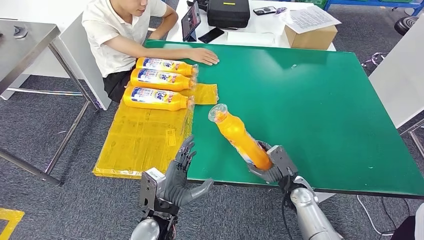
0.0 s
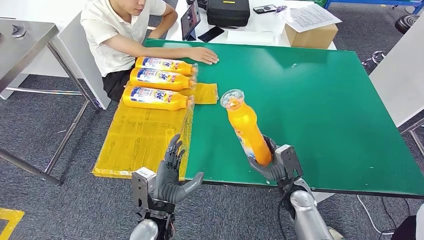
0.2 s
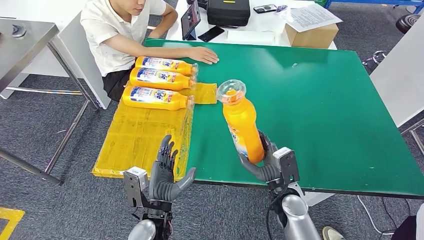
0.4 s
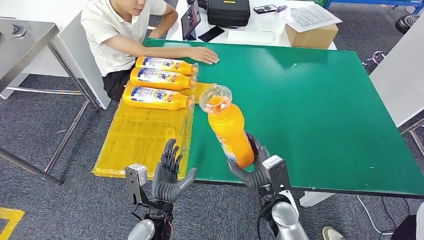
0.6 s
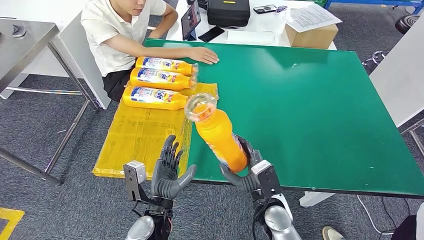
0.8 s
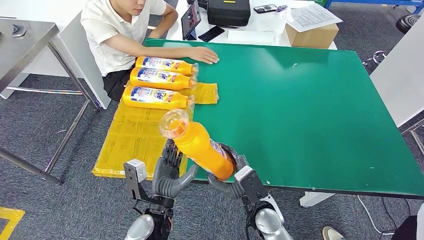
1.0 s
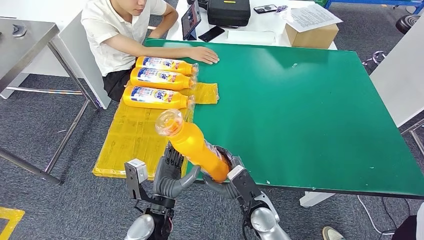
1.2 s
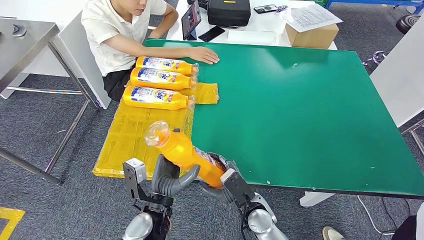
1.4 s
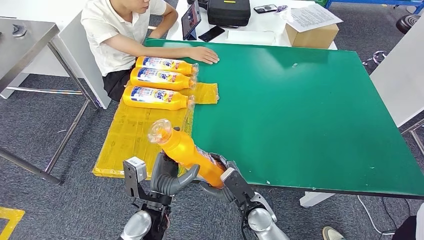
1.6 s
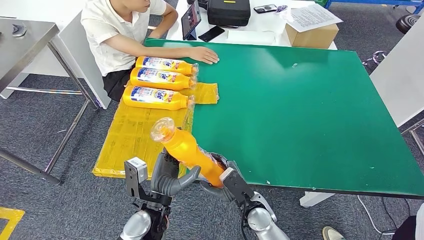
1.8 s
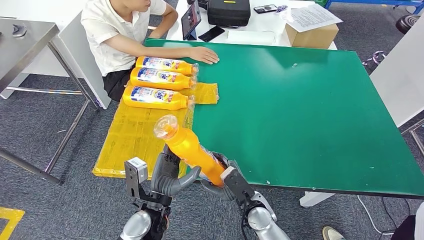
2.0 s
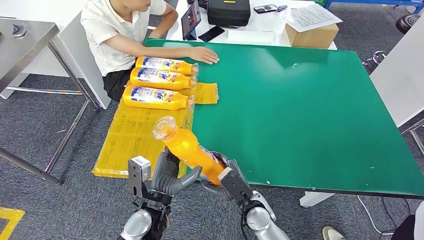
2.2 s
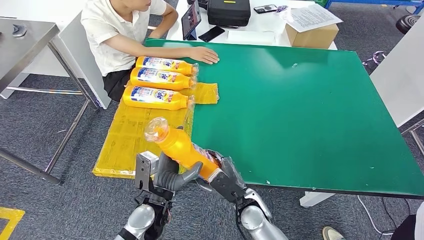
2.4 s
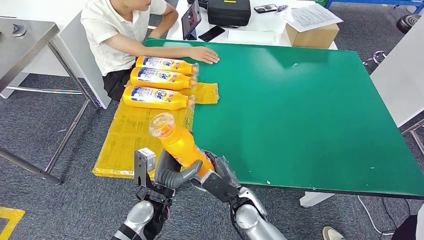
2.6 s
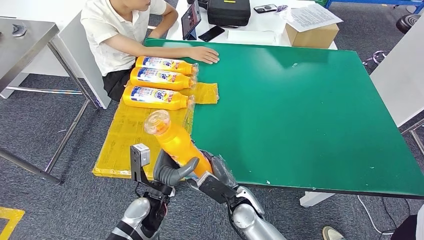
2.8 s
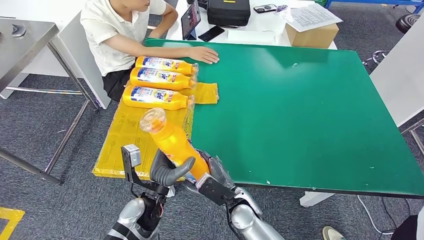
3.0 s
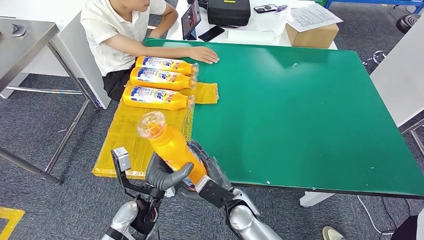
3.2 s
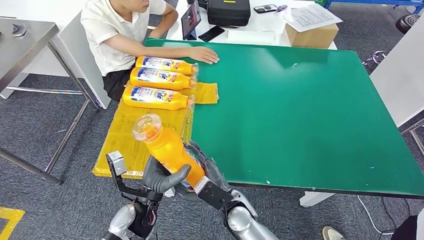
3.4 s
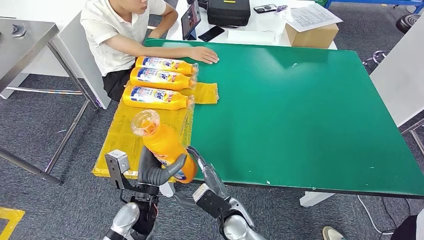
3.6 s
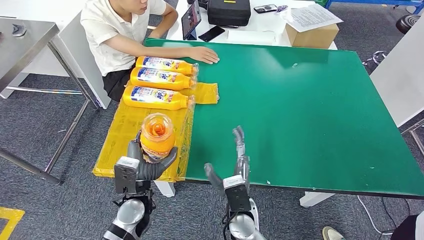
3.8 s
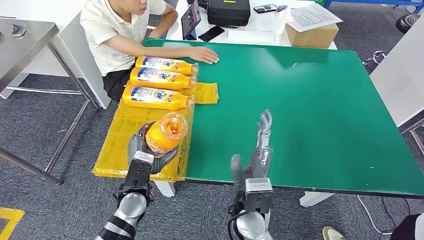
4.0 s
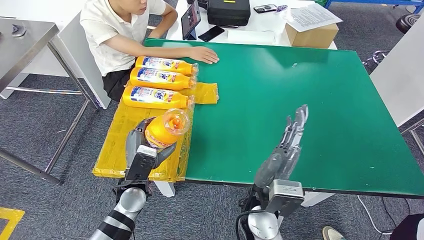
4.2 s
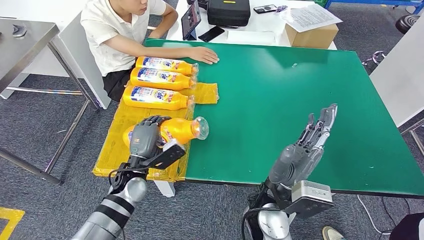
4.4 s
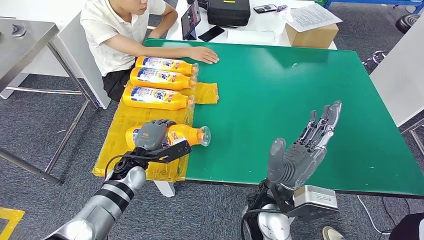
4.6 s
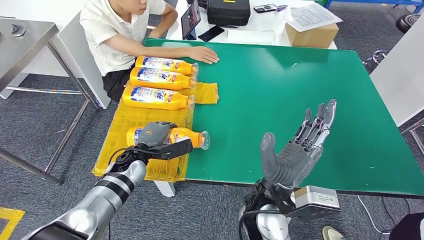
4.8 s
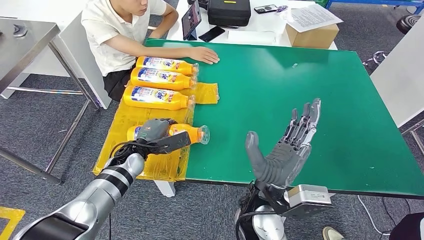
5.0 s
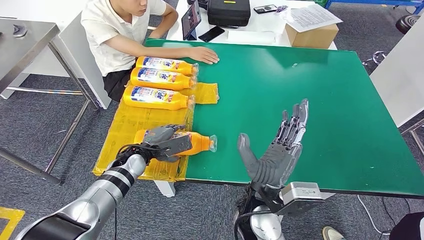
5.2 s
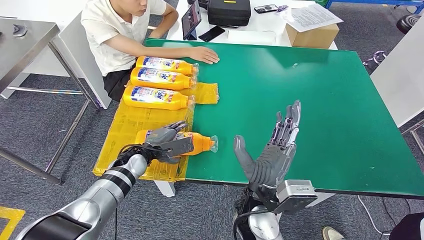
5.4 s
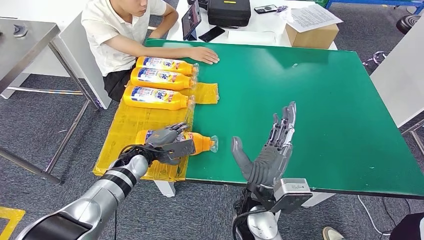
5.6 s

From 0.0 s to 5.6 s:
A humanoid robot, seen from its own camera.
Step, from 0.0 s to 5.6 s: Flip the fast-moving consumer goods bottle to the front side.
From 0.0 s to 1.4 s: The right hand goes some 15 cm to the left and backward.
From 1.4 s to 2.8 s: The hands make only small movements.
From 2.8 s to 4.2 s: The left hand shifts some 5 cm to the left, while the right hand goes approximately 10 cm upward.
From 4.2 s to 5.6 s: The left hand shifts some 10 cm forward.

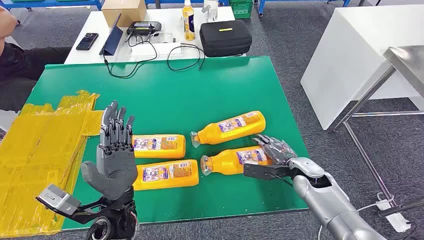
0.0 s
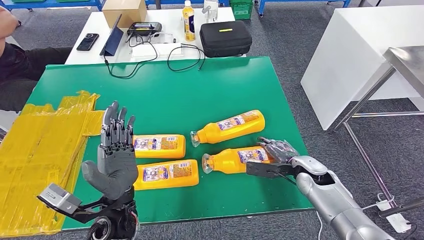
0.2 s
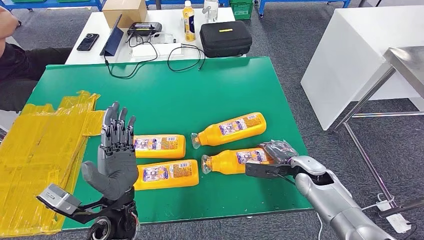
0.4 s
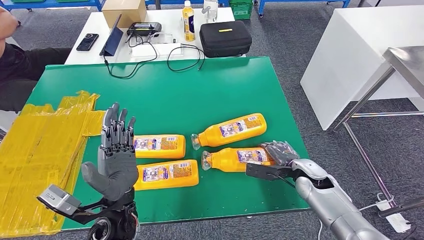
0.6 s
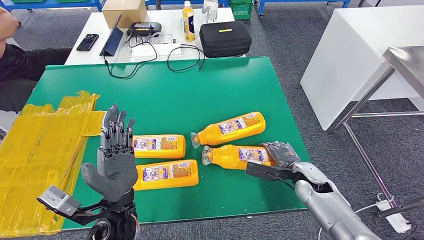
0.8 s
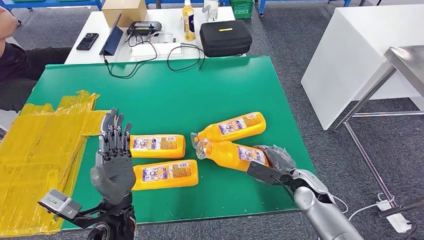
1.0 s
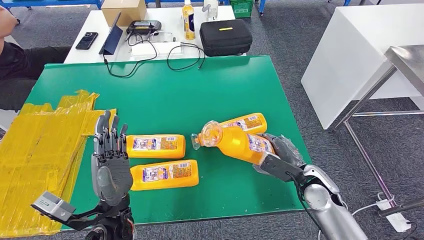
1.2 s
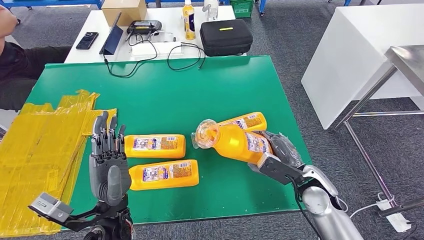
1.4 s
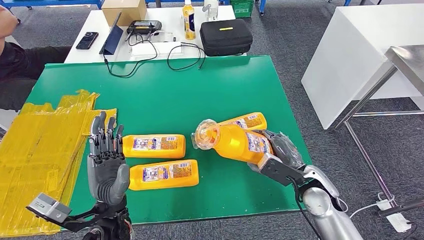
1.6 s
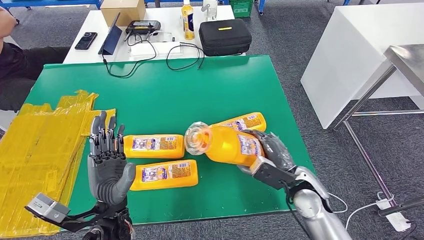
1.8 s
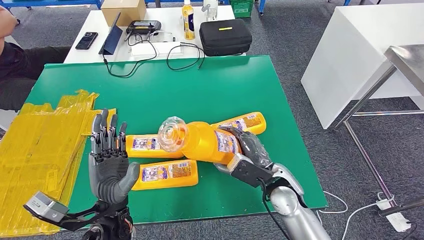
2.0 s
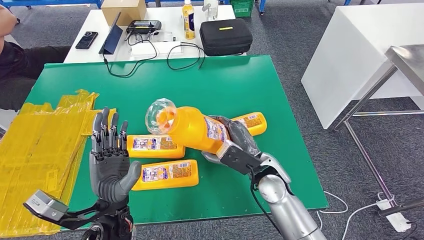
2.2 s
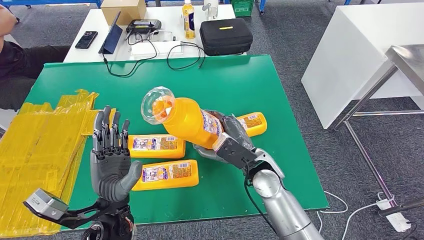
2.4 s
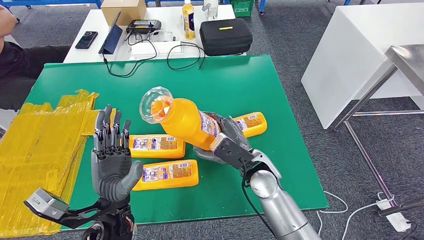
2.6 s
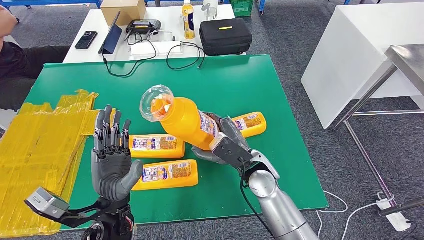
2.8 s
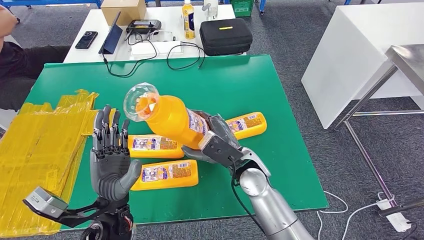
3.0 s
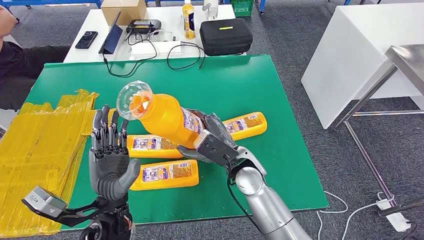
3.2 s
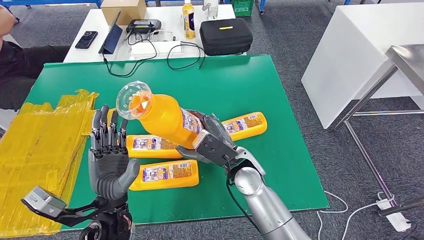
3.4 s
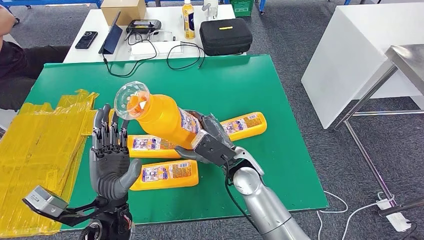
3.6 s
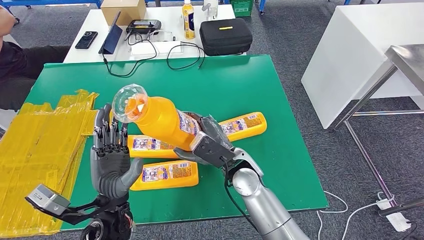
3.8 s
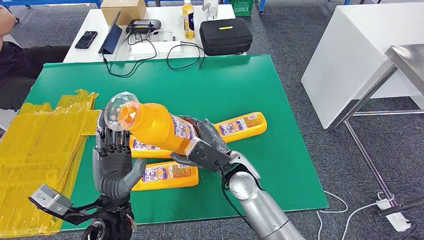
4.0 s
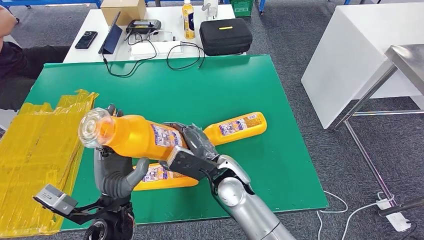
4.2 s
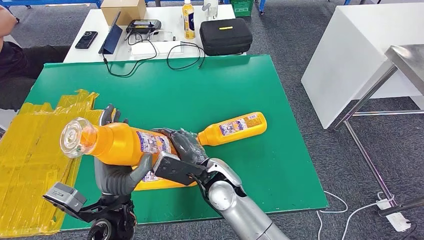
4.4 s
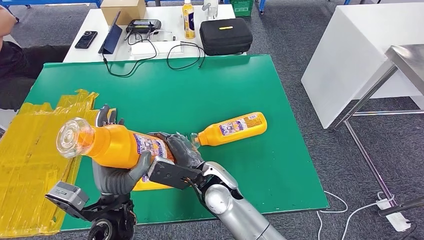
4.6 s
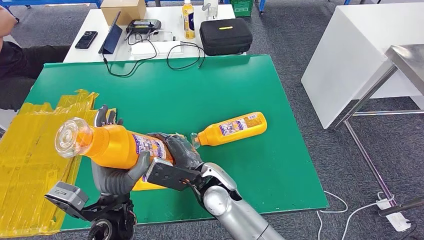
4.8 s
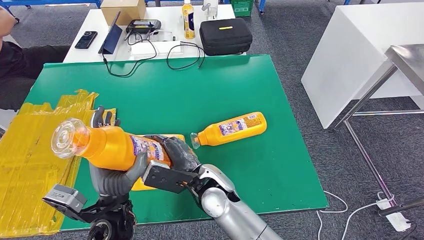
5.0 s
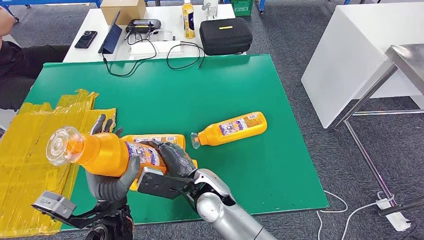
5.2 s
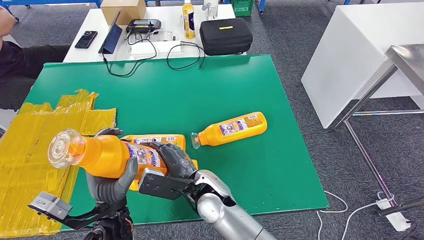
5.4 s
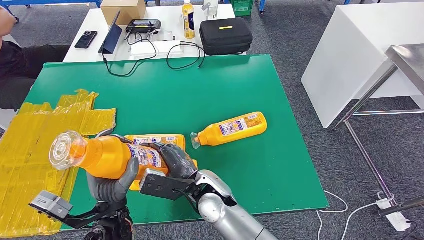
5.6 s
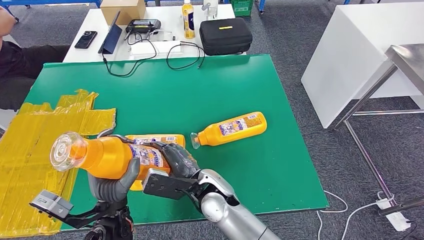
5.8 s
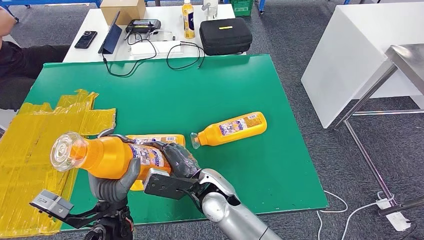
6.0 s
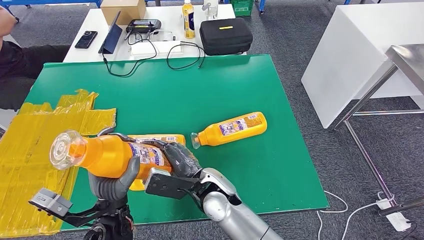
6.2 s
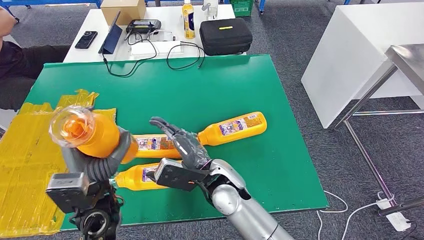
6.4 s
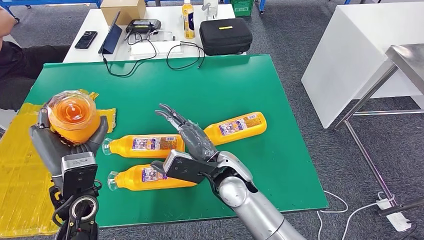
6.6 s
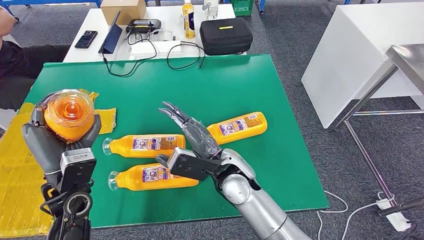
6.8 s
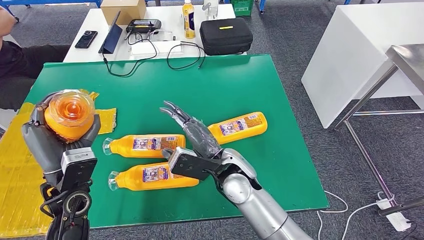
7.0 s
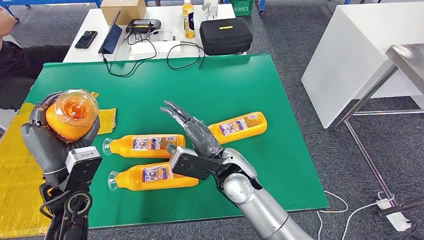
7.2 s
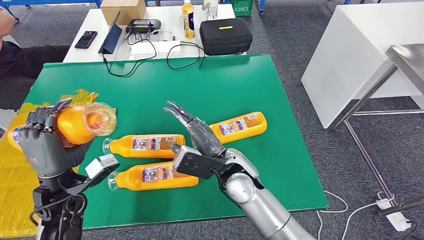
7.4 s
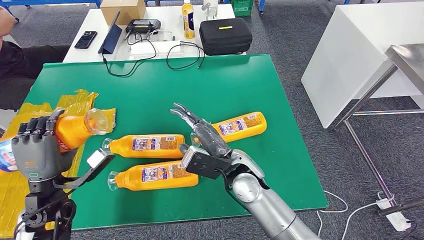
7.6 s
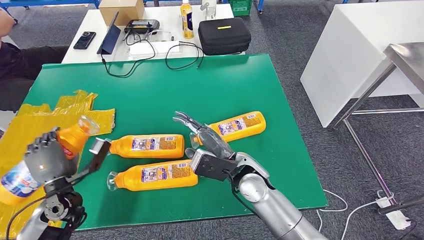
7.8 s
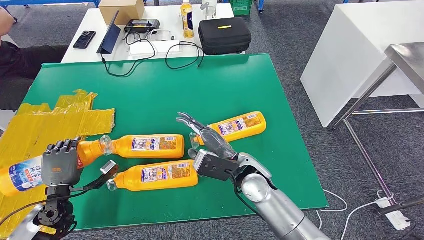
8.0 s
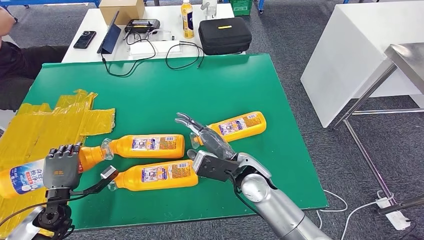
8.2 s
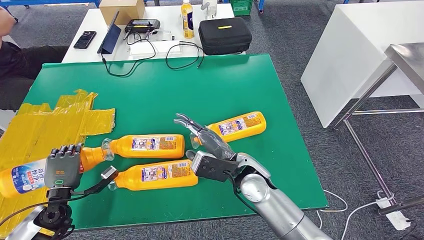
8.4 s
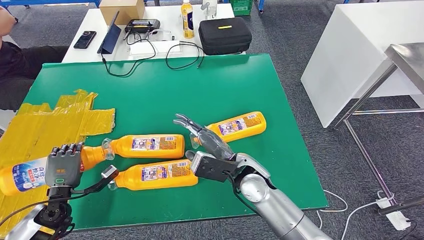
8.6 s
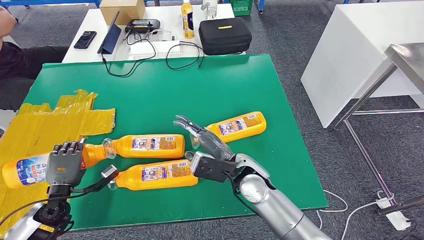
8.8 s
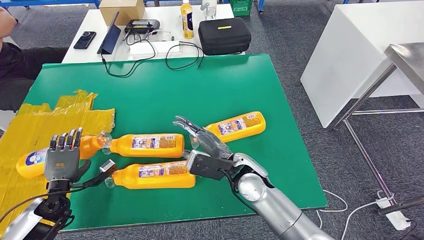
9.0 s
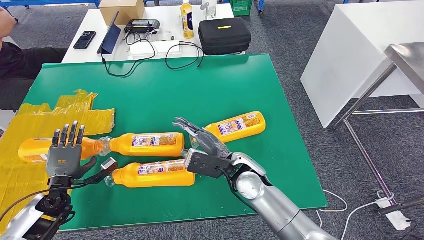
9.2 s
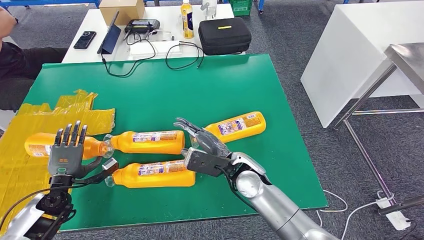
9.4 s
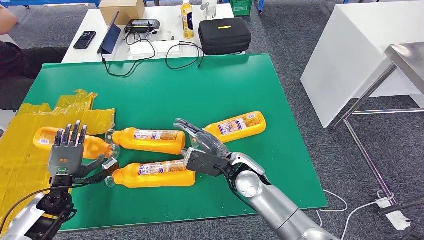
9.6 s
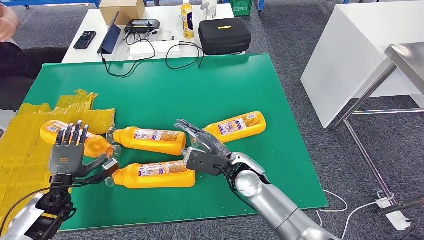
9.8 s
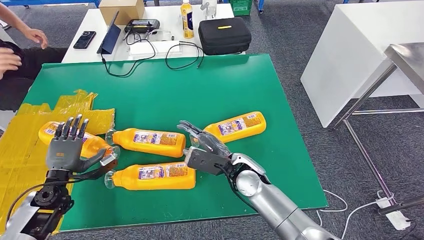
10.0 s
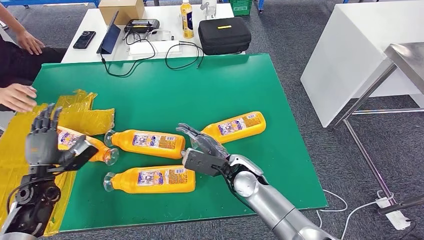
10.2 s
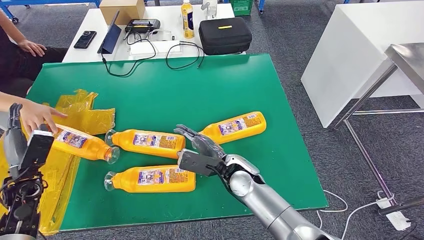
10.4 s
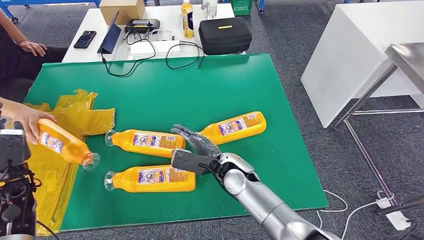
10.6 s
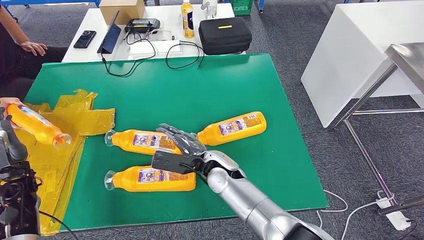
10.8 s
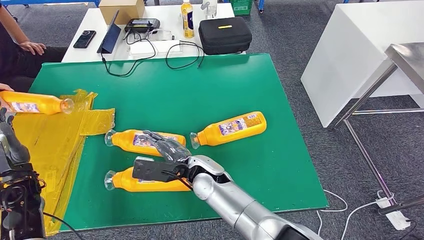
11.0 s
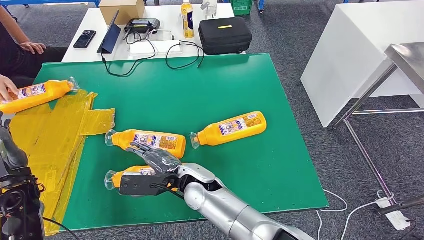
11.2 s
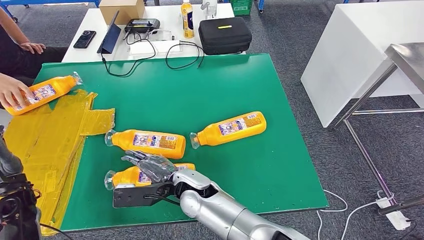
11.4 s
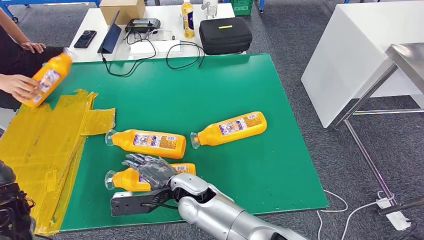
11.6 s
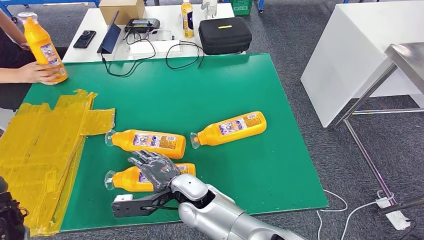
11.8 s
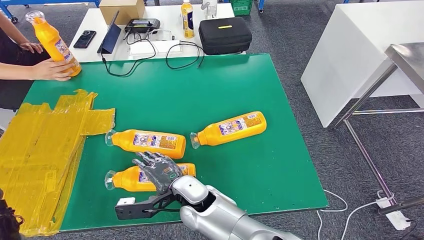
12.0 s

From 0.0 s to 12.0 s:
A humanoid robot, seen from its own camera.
Step, from 0.0 s to 4.6 s: Take the fast-moving consumer goods bottle from the table.
Step, from 4.8 s to 9.4 s: Flip the fast-moving consumer goods bottle to the front side.
From 1.6 s to 3.0 s: The right hand goes roughly 15 cm to the left.
From 3.0 s to 4.4 s: The right hand moves to the left, some 5 cm.
From 4.4 s to 6.0 s: The hands stay close to where they were, moving slightly.
From 7.6 s to 9.0 s: The left hand moves downward and to the left, approximately 10 cm.
From 9.0 s to 10.4 s: The left hand shifts by roughly 5 cm.
